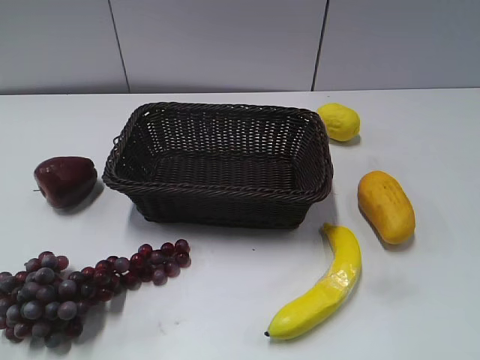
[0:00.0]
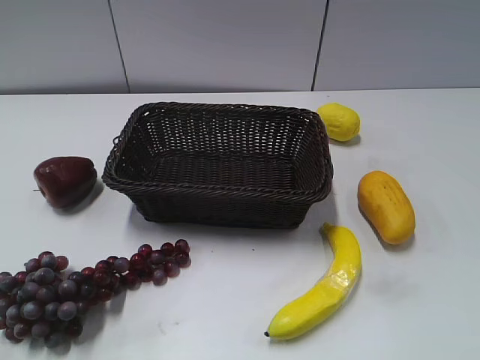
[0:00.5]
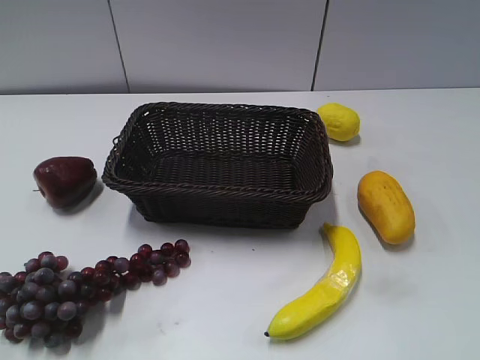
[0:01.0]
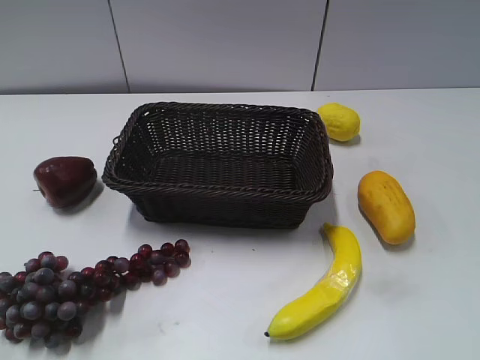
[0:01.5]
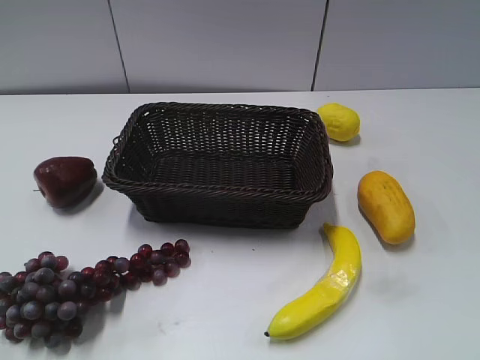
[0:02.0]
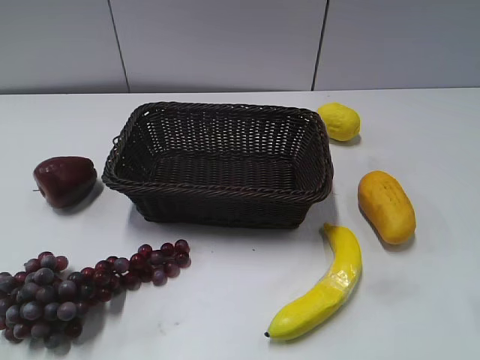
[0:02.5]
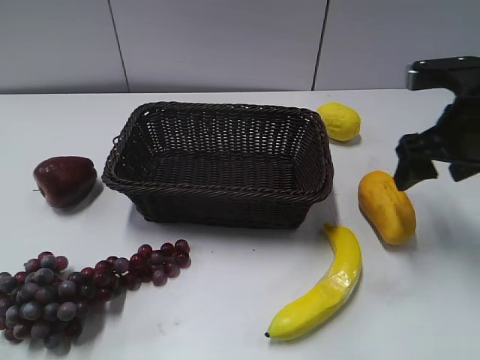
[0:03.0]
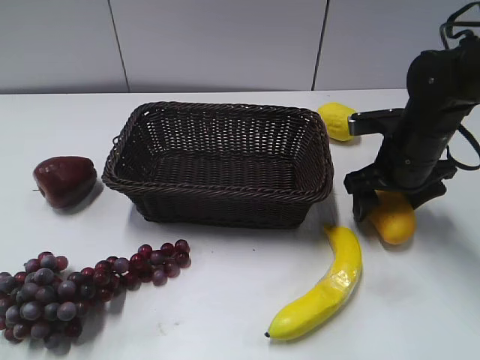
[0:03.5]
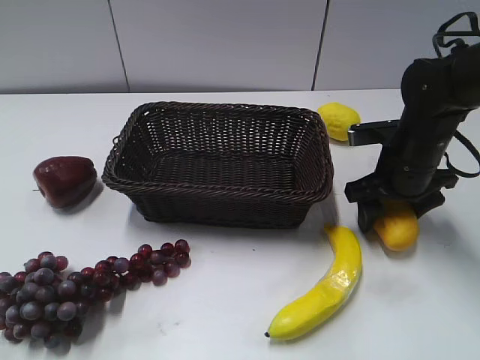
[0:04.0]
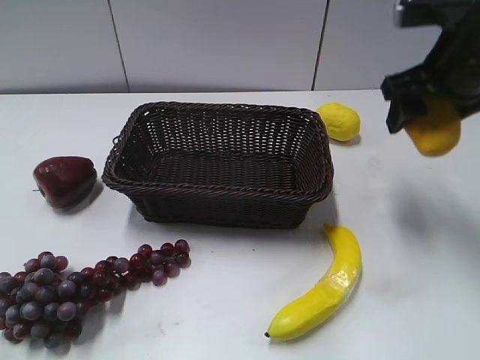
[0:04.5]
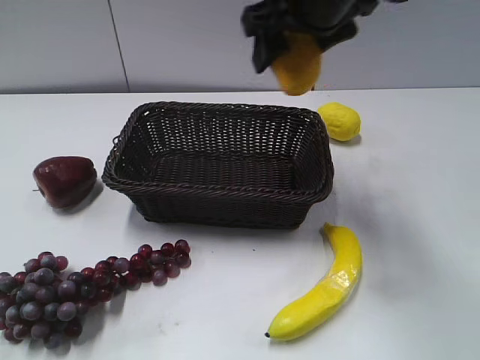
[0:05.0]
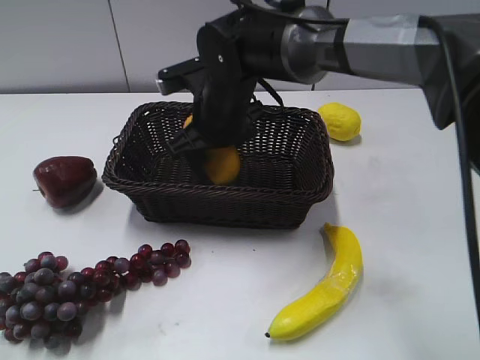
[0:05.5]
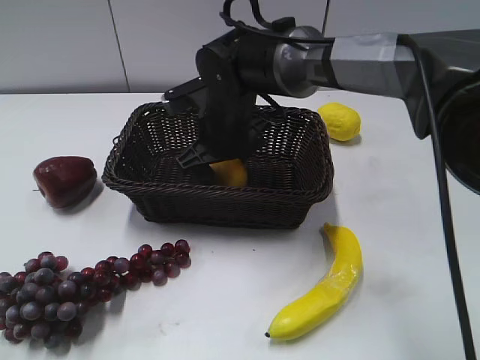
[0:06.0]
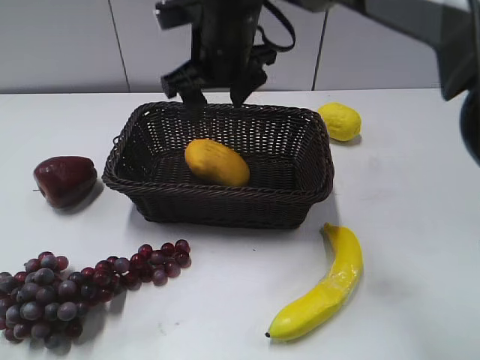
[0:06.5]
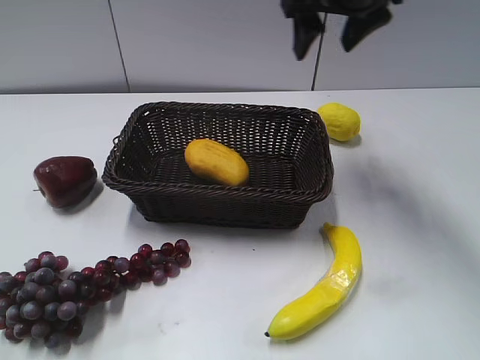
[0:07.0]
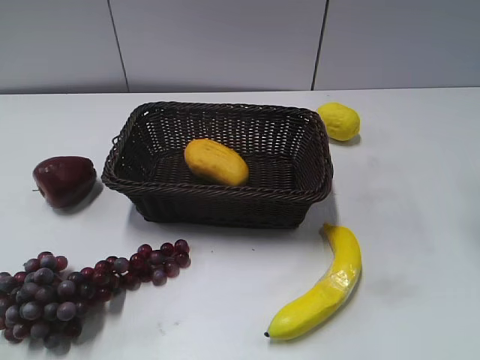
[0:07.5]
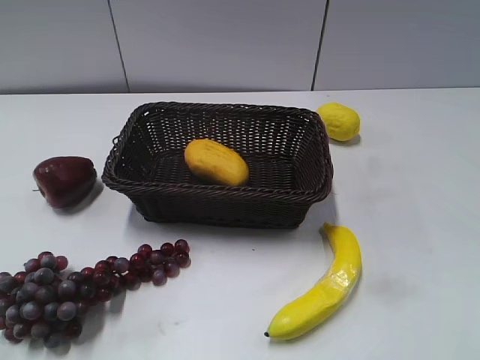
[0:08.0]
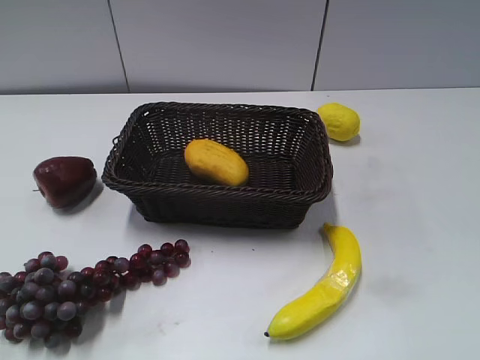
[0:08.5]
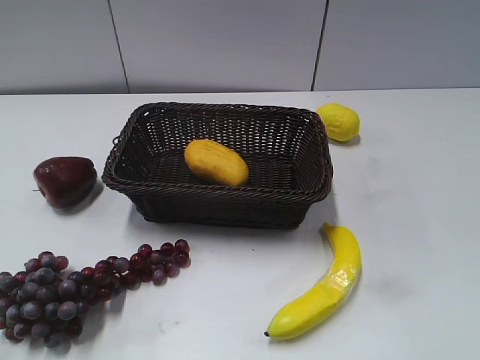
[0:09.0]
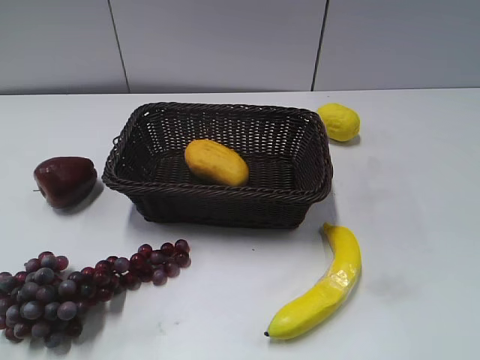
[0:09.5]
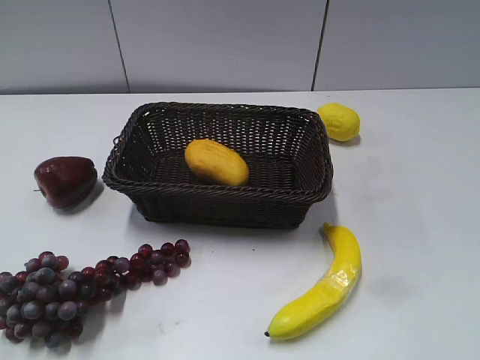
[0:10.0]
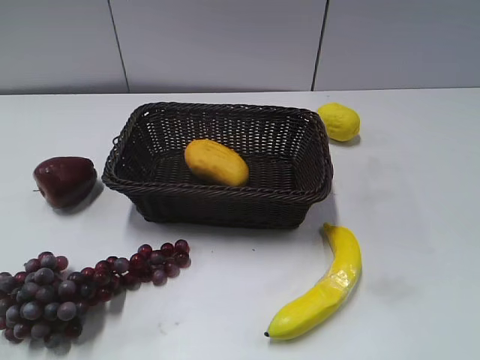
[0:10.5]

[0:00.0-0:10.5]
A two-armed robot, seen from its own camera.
Step, 0:03.0 to 0:03.5: Grasp the mango with right gripper.
Step, 0:04.0 to 0:06.0: Place the mango in the basket with right gripper.
0:02.0 to 0:04.0: The right gripper moves forward and downward, approximately 40 cm, and opens, then closes again.
0:04.0 to 0:06.5: The right gripper is displaced to the left and upward by roughly 25 cm.
0:06.5 to 0:08.5: The right gripper shifts approximately 50 cm backward and to the right.
